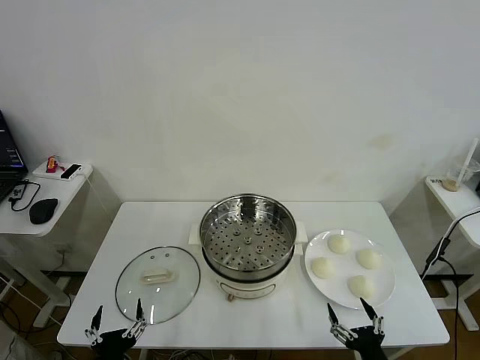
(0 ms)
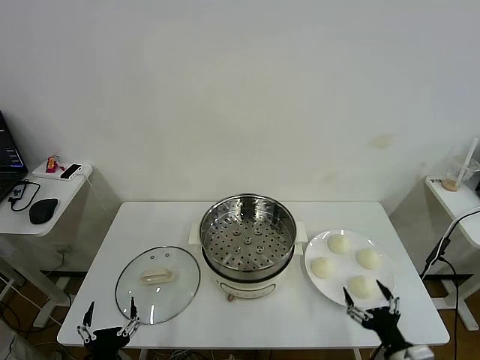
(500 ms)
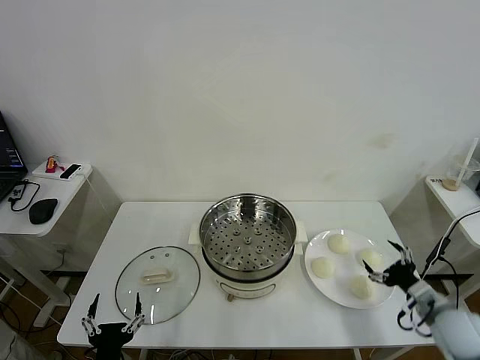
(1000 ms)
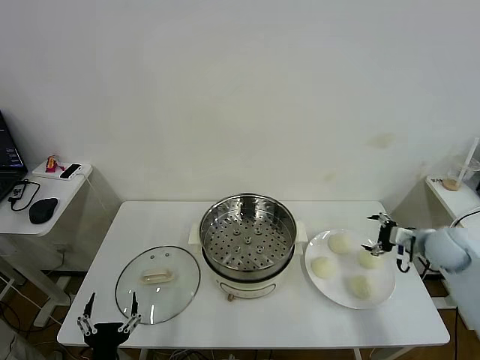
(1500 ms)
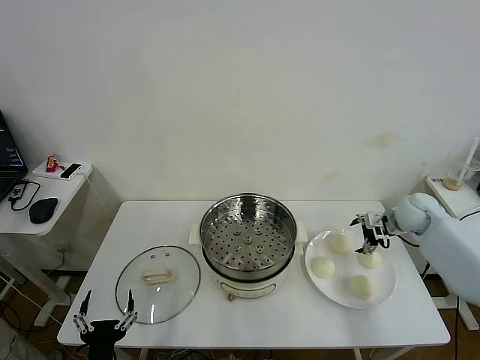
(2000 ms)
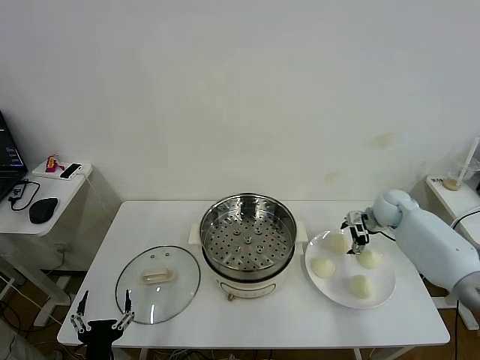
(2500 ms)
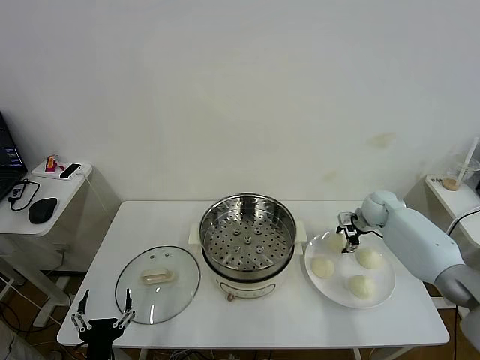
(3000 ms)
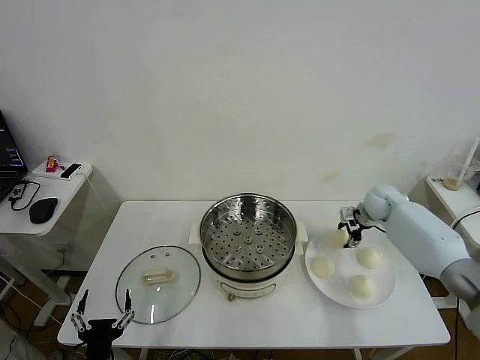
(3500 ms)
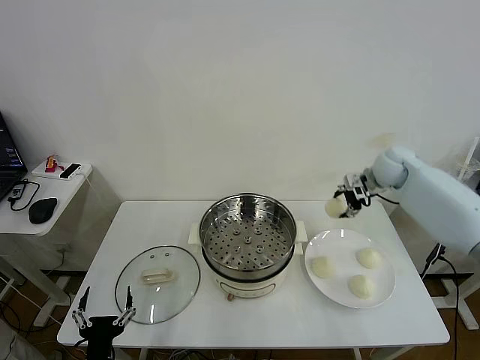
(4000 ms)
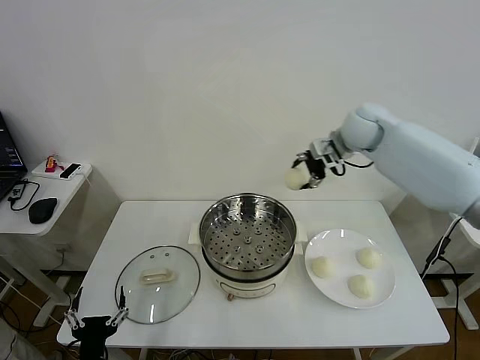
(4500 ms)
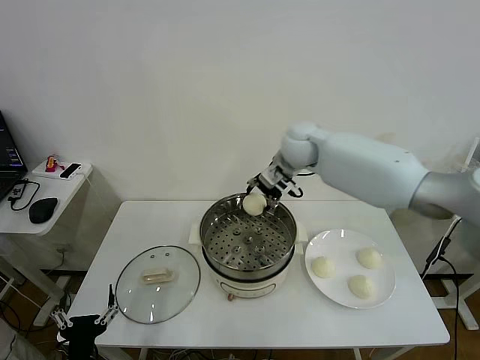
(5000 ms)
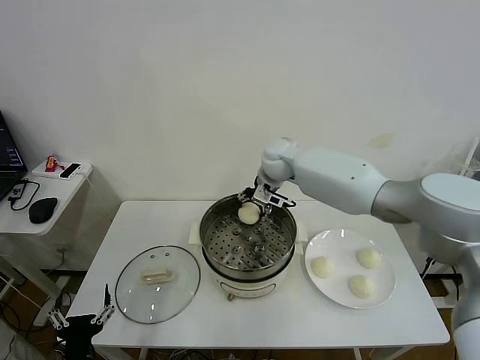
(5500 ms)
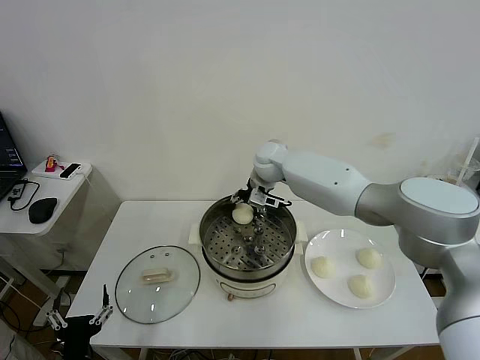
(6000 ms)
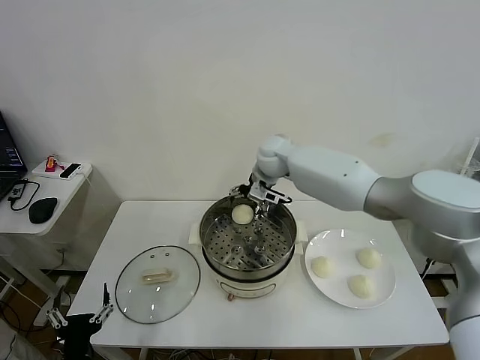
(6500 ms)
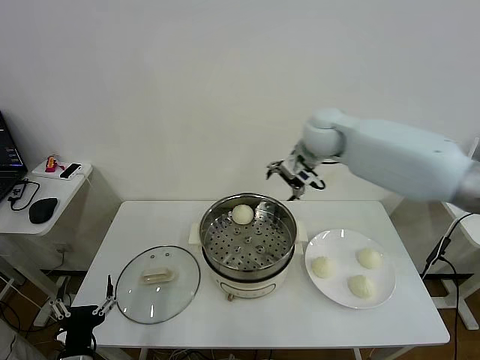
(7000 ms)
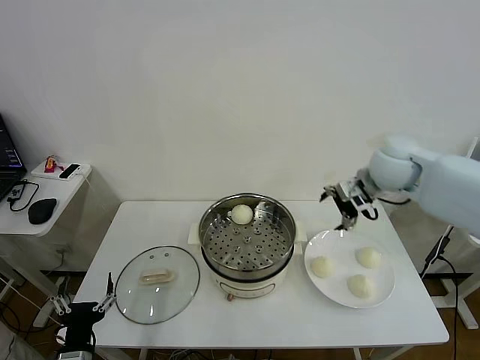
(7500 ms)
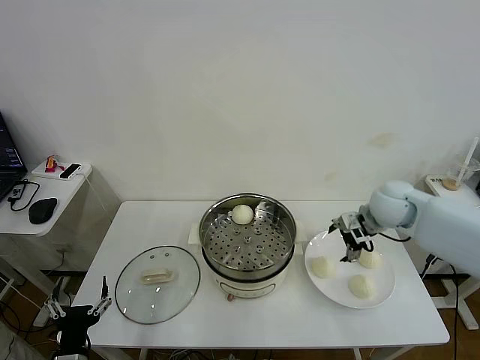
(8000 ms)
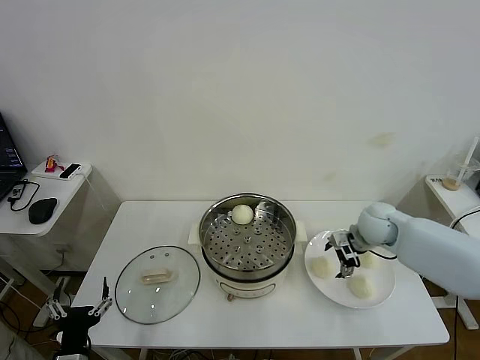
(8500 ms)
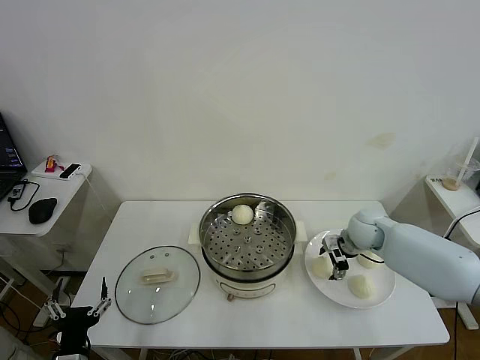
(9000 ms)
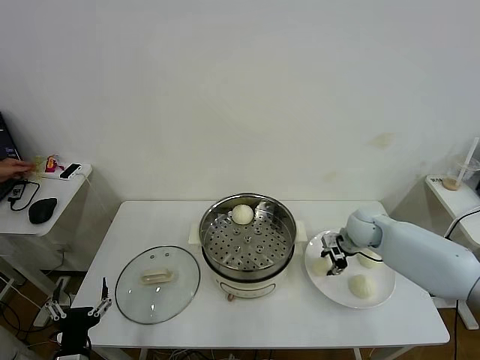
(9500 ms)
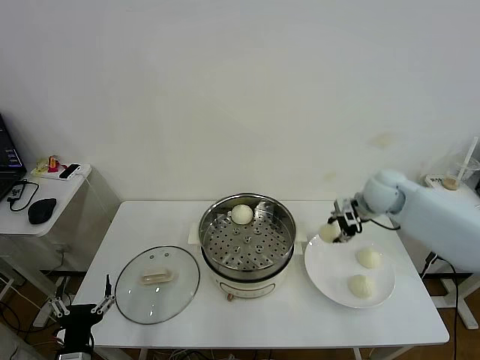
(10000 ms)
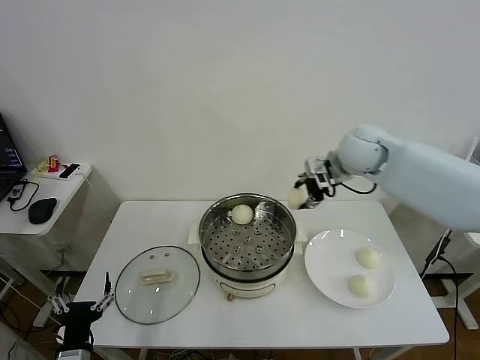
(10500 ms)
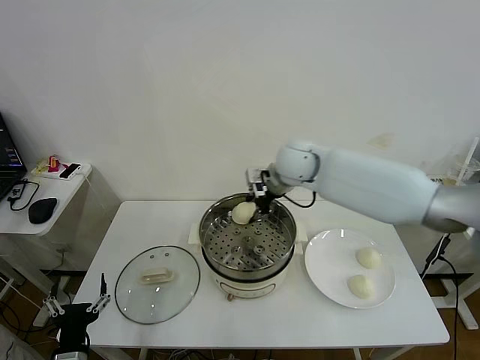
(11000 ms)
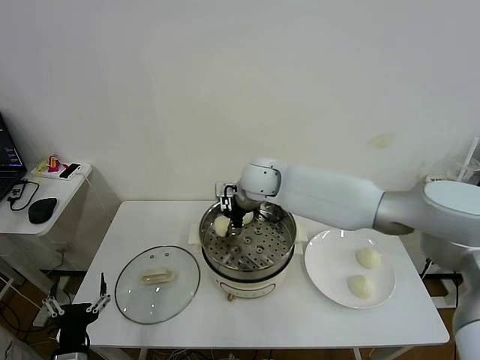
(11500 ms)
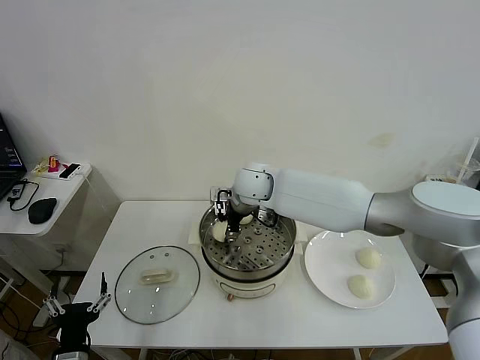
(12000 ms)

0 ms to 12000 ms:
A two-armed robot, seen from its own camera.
Task of the whole recording: take steamed baozi put them in steamer then cover it.
Step, 0 ms to 3000 ms: Grasp the baozi in the plate with right gripper.
Step, 3500 ms to 6500 ms: Place the baozi on the steamer with right gripper.
Step, 7000 ms to 9000 ms: Grasp the baozi in the plate with right gripper.
2000 ms to 4000 ms: The right gripper heads upward, to the left and forward, covering approximately 15 cm, and closes up.
4000 ms to 6000 ms: The right gripper heads to the left, covering approximately 30 cm.
6000 ms to 8000 ms: The right gripper goes roughly 30 cm to the right and backward, and opens.
8000 ms to 10000 ms: The right gripper moves roughly 10 cm downward and comes back, and closes its fingers.
10000 ms to 12000 ms: The right gripper moves to the left, about 30 cm, and opens.

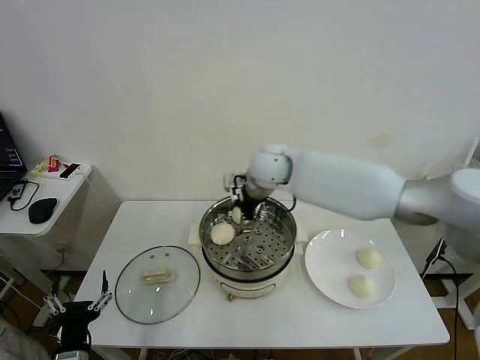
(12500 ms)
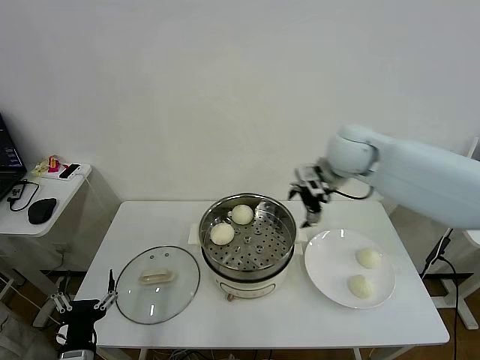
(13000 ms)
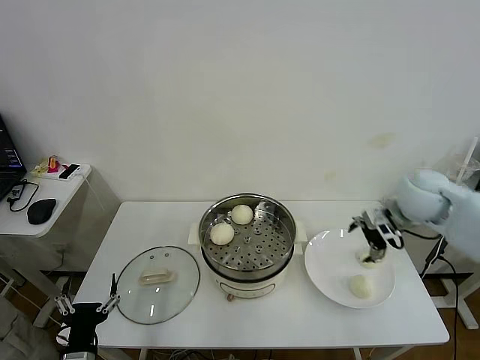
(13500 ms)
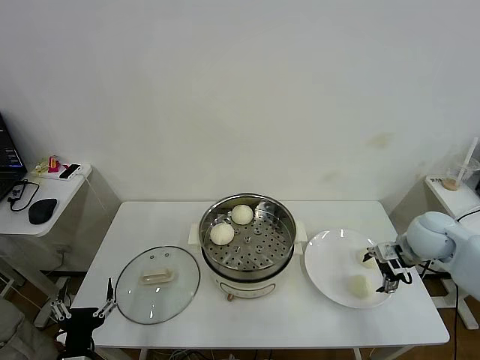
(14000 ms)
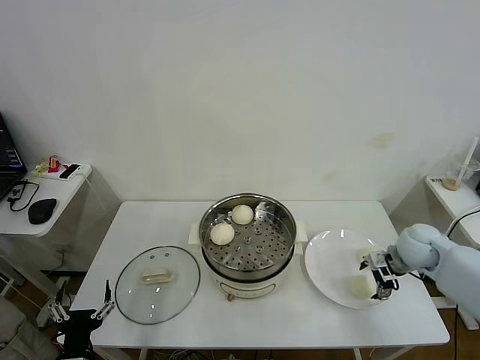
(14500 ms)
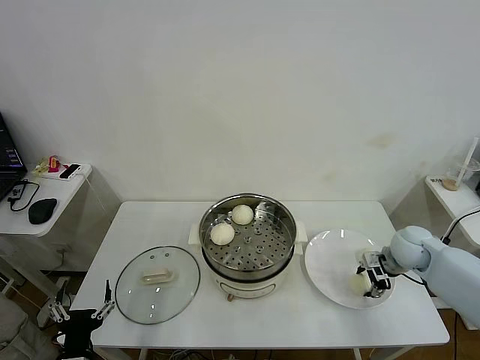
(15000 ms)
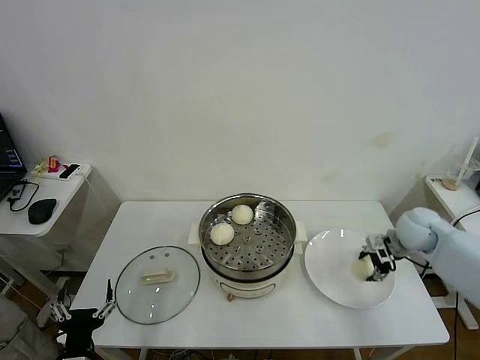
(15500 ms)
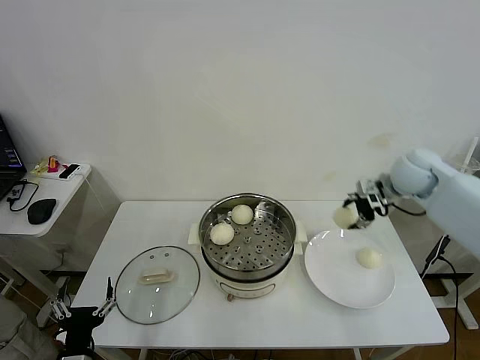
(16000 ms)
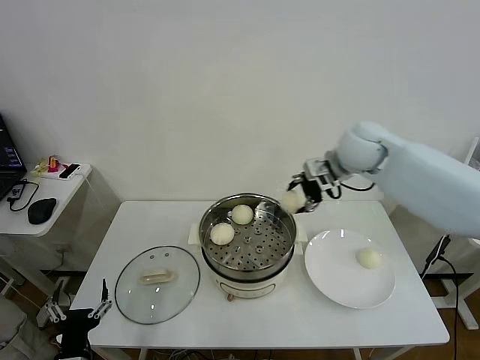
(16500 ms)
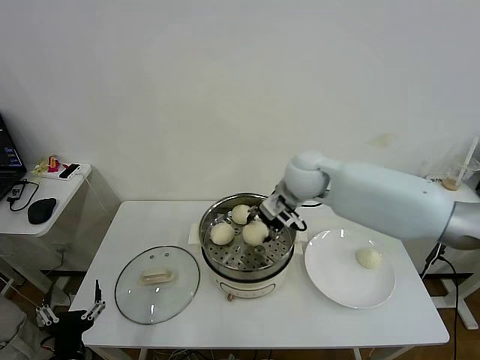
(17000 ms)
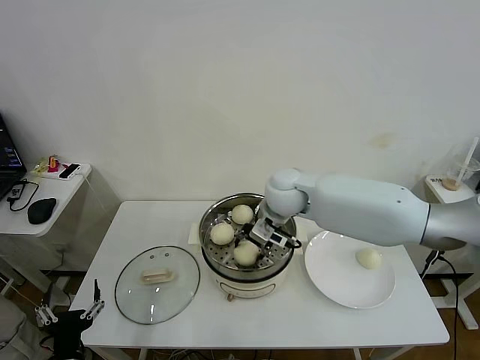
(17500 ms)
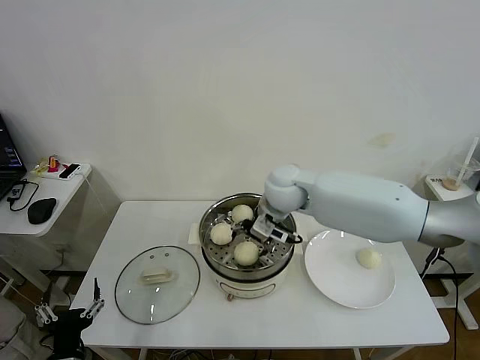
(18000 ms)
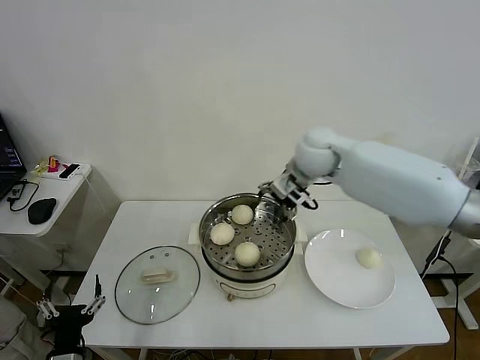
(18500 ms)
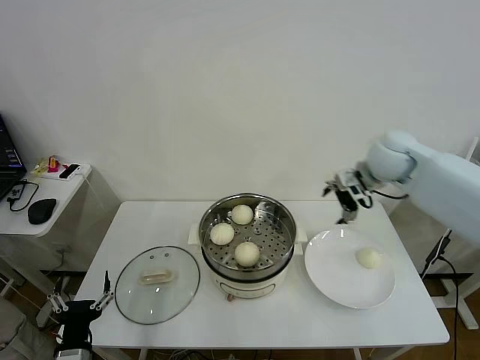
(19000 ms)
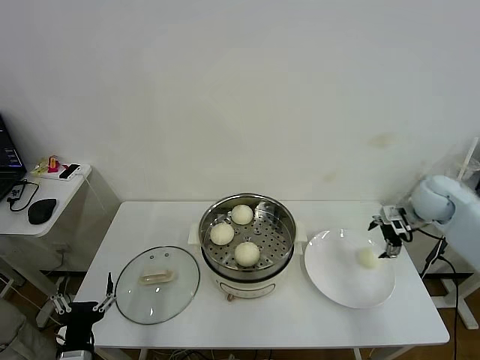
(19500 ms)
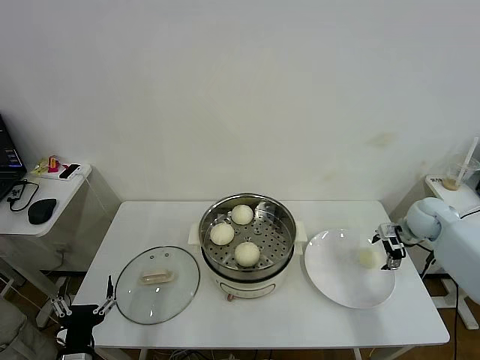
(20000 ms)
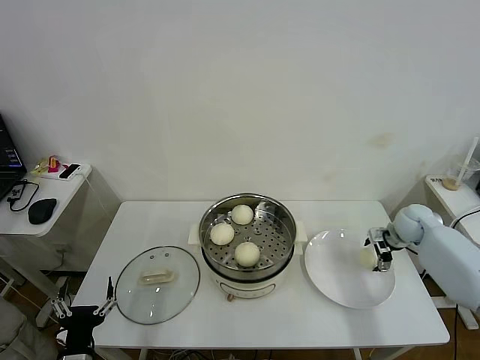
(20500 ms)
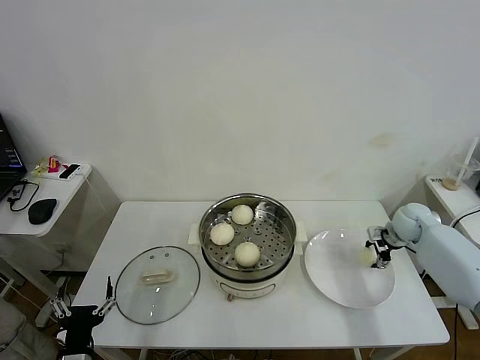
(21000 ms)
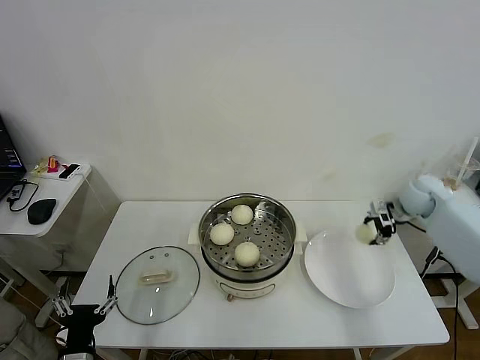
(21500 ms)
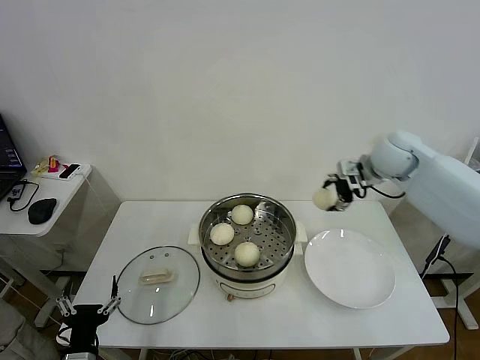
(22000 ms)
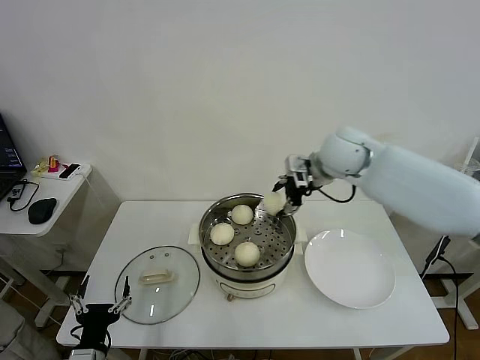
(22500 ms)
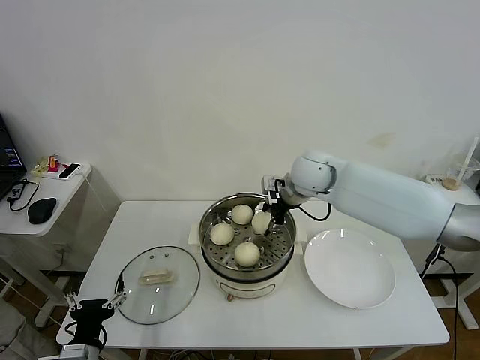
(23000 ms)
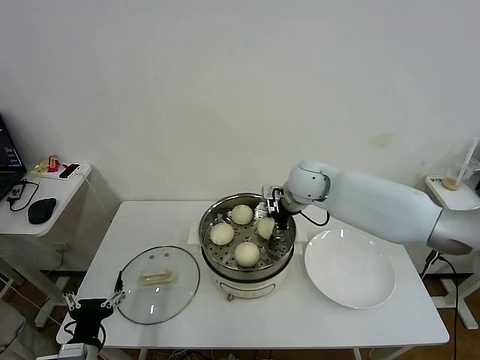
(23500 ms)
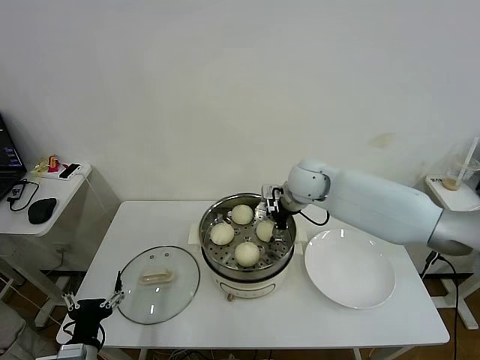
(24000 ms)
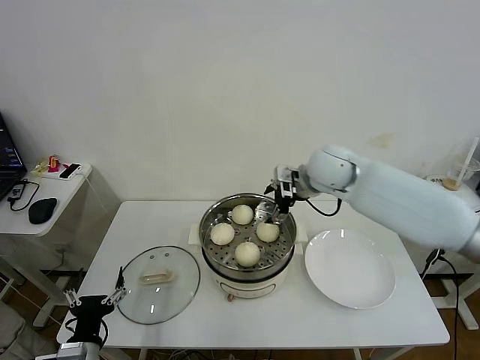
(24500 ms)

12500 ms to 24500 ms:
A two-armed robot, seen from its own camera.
Task of the whole recording: take steamed baozi put them in steamer then cover it.
Step, 12500 ms to 15000 ms: Grasp the baozi in the plate with right gripper.
Step, 15500 ms to 18000 ms: Place the baozi on the steamer with right gripper.
Step, 18500 ms to 21000 ms: Grasp the baozi in the plate with right gripper.
Step, 21500 ms to 24000 ms: Place the baozi on the steamer with right gripper.
12500 ms to 14500 ms: The right gripper moves to the right and downward, about 35 cm.
14500 ms to 16500 ms: The right gripper moves upward, to the left and forward, about 30 cm, and closes its fingers.
16500 ms to 18500 ms: The right gripper shifts approximately 5 cm to the left, and opens up.
18500 ms to 20500 ms: The right gripper goes some 35 cm to the right and downward.
20500 ms to 22500 ms: The right gripper is displaced to the left and upward by about 35 cm, and closes up.
22500 ms to 24500 ms: The right gripper opens its fingers.

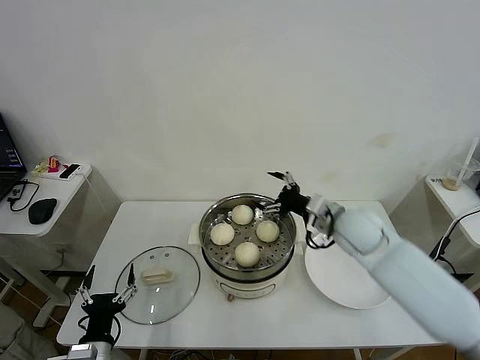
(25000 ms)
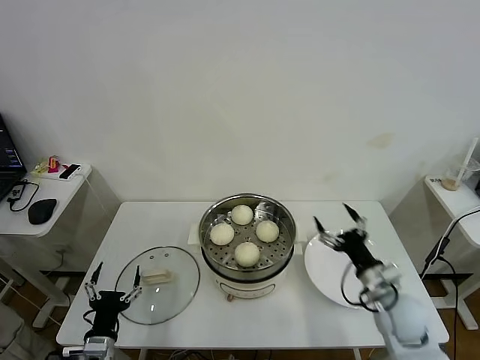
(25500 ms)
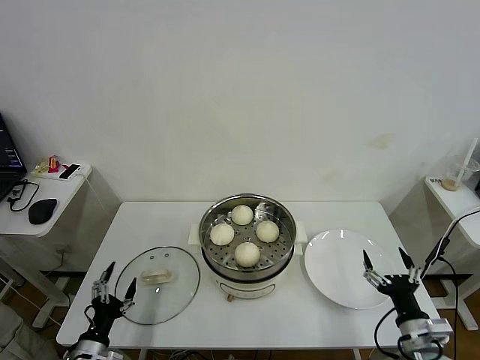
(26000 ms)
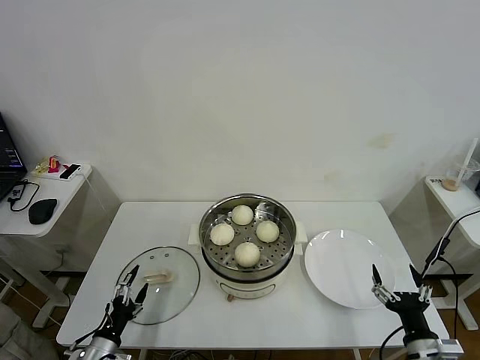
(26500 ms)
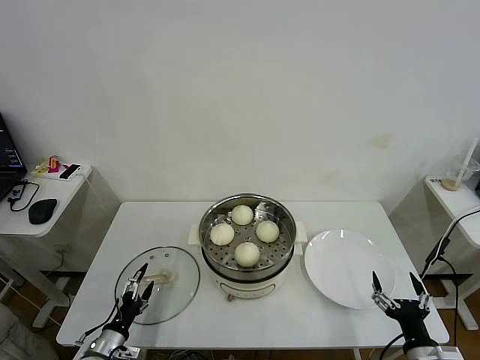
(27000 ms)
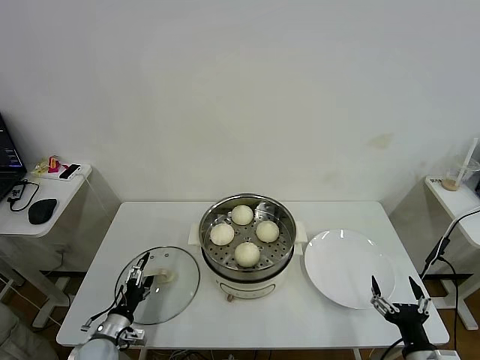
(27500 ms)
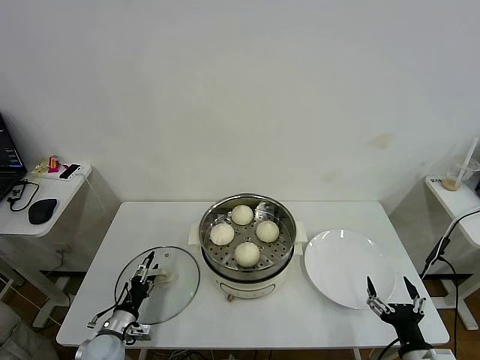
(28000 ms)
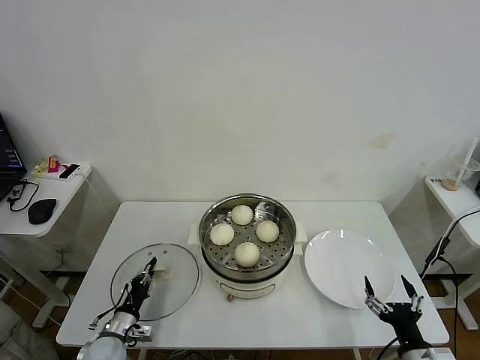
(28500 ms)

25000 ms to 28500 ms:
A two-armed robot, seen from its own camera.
Task of the whole recording: take steamed baozi put them in steamer then cover it.
25000 ms to 27000 ms: The left gripper shifts approximately 10 cm downward and to the left. Meanwhile the right gripper shifts approximately 35 cm backward, downward and to the right.
27000 ms to 28500 ms: The left gripper travels forward by about 5 cm, and closes its fingers.
